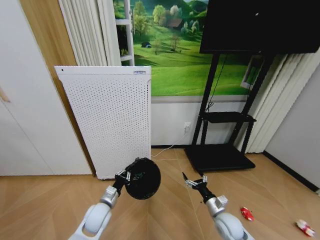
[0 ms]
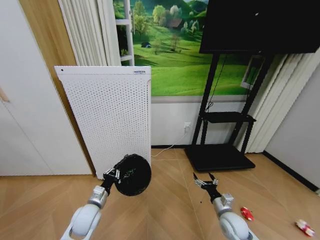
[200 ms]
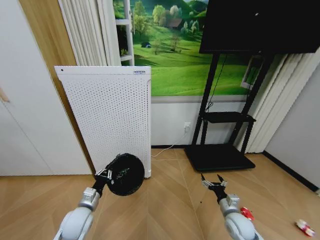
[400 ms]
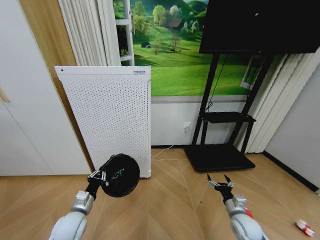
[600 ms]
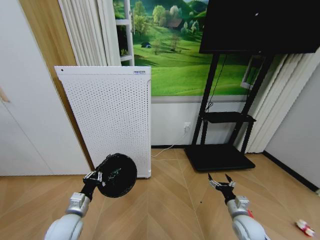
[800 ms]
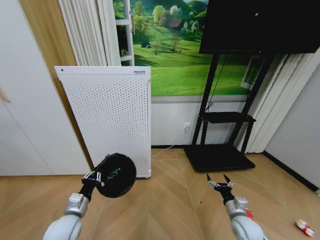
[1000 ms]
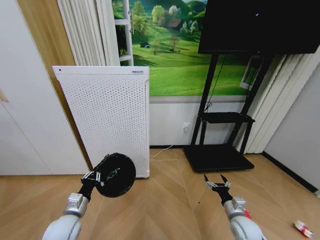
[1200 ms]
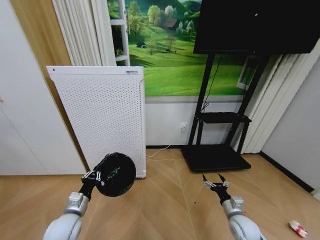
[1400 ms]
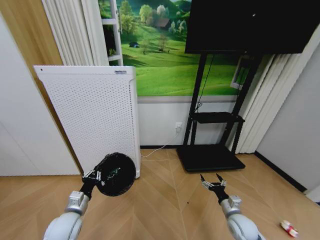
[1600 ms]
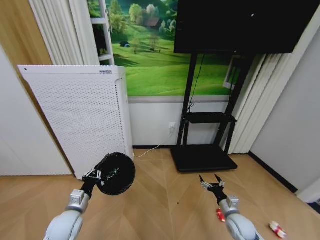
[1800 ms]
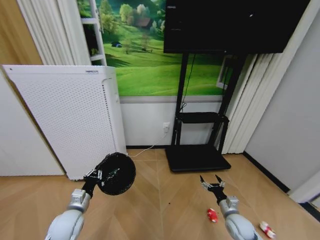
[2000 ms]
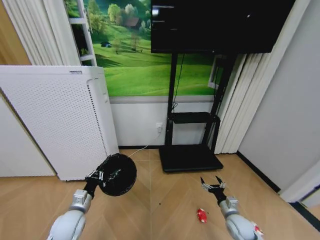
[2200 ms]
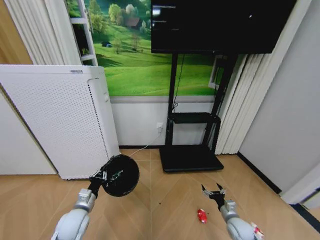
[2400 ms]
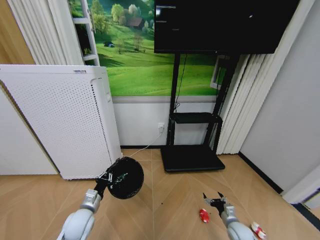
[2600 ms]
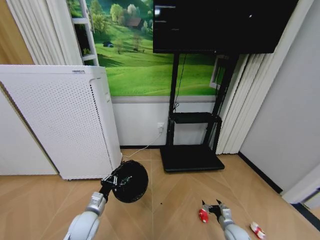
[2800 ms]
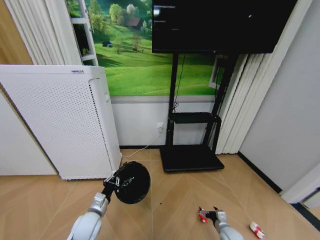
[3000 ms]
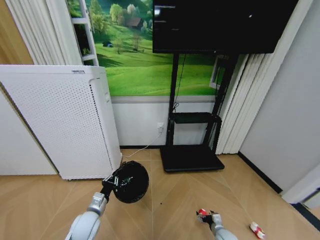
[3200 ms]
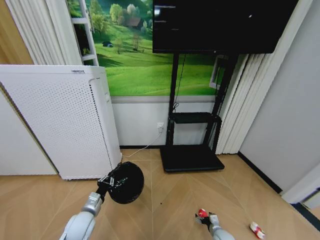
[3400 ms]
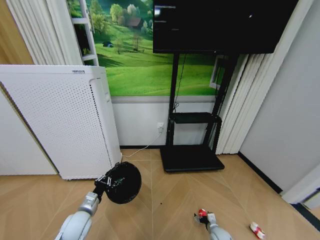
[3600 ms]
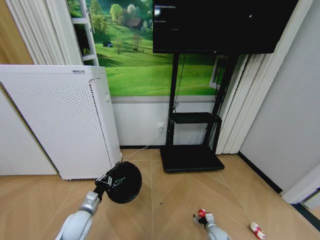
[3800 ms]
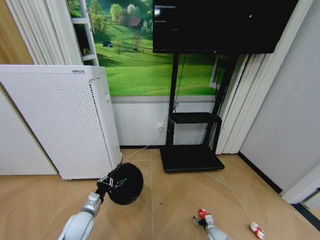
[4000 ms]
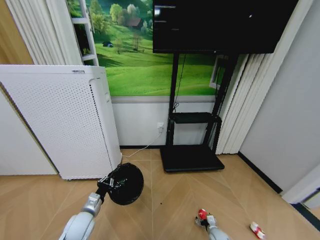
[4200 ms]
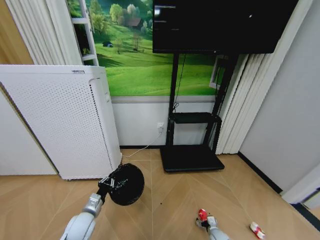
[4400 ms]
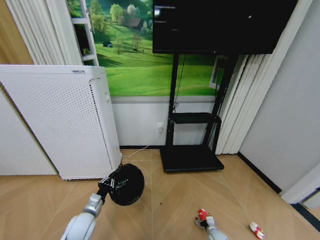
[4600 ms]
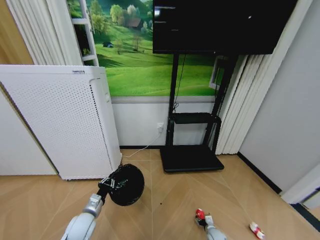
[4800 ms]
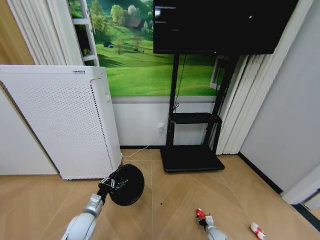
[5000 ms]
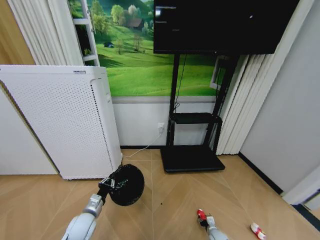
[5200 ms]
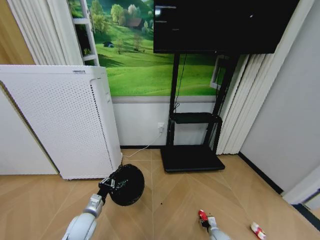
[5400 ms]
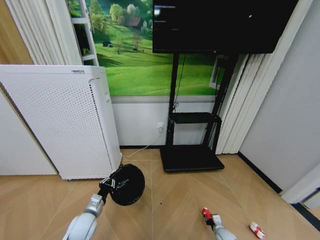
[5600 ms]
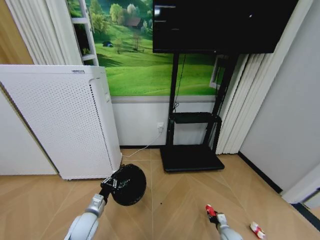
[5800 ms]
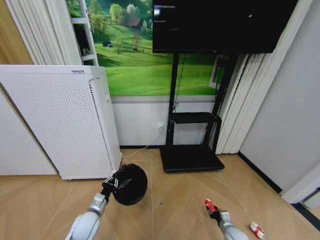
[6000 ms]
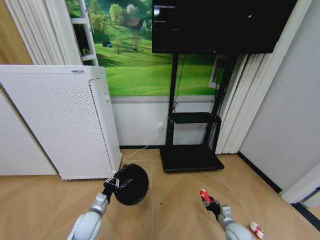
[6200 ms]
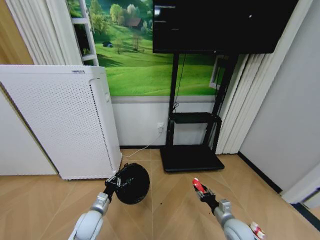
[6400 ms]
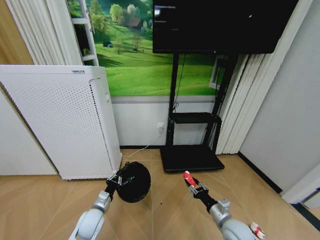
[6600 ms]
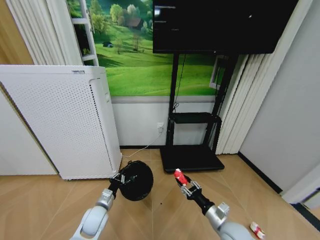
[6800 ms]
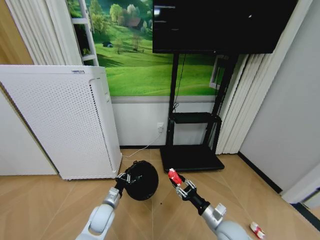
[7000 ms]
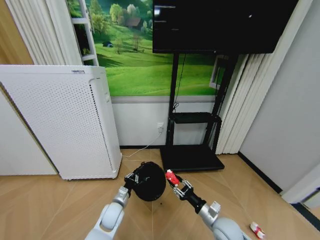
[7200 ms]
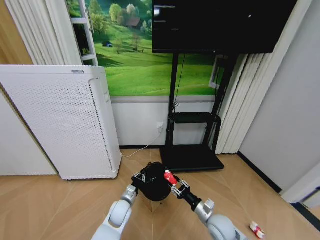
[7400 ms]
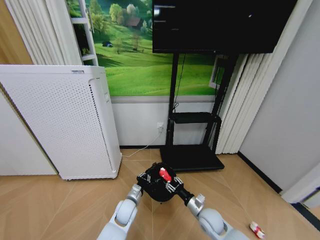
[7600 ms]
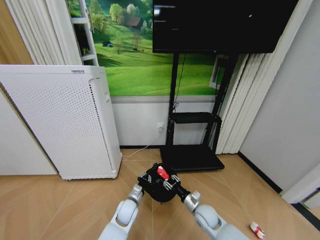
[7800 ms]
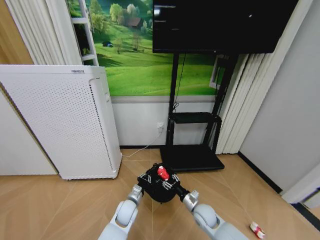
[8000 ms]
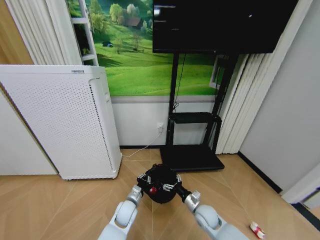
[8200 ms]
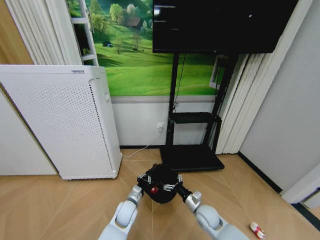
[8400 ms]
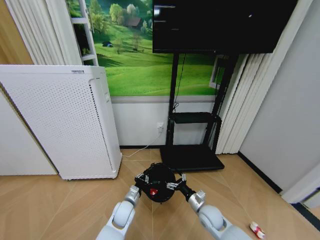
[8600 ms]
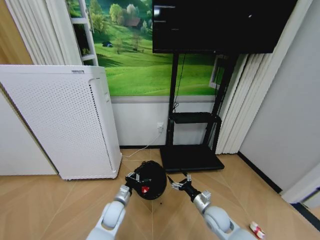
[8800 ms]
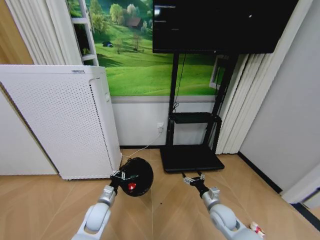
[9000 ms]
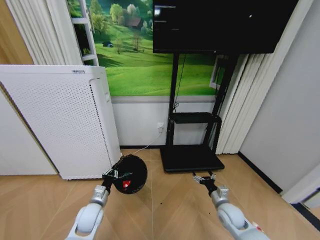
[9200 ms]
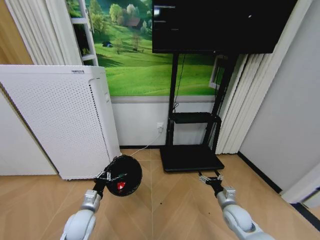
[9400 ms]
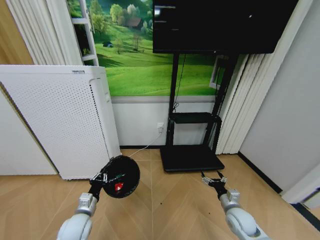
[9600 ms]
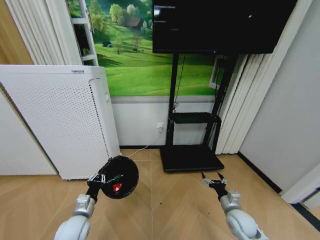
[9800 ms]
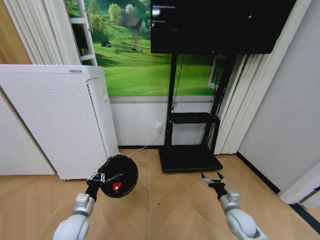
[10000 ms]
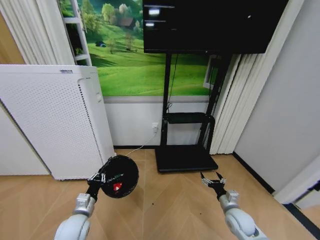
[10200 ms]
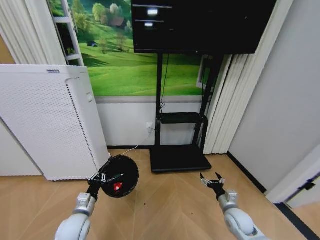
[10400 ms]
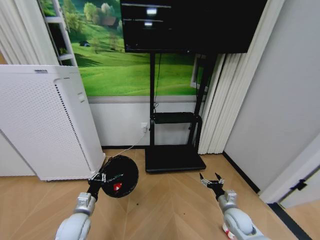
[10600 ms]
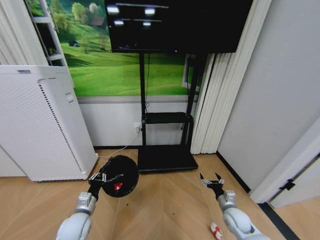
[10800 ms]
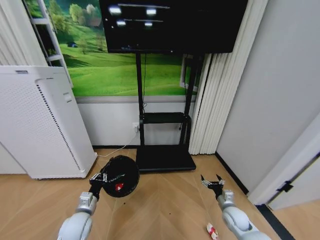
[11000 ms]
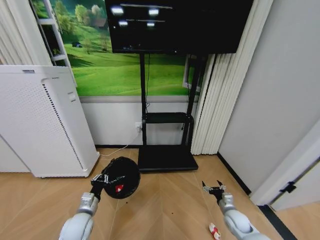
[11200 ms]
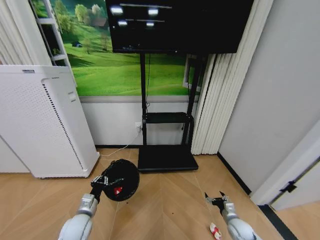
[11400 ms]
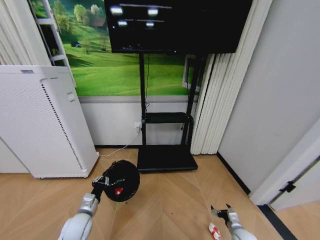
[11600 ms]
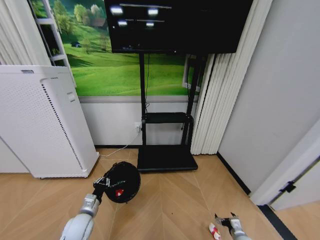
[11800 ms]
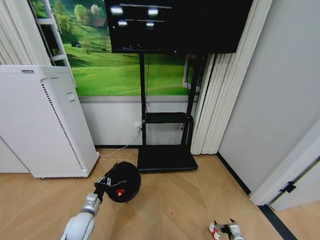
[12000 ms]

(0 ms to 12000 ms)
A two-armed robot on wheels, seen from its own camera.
Task of the whole recording: Pick up the trash bin and place the garbage on the floor into it.
0 ms - 1600 ms: The left gripper heads to the left, covering some 10 cm, while the right gripper heads to the right, covering some 5 cm.
1600 ms - 3000 ms: The left gripper moves to the right, roughly 5 cm; the right gripper is displaced downward by roughly 15 cm.
3000 ms - 4400 ms: The right gripper heads downward, covering roughly 10 cm.
4400 ms - 6000 ms: The right gripper is displaced upward by some 10 cm, and closes.
6000 ms - 7600 ms: The left gripper travels to the right and forward by some 15 cm, while the right gripper shifts some 20 cm to the left and upward.
7600 ms - 9000 ms: The right gripper opens up. Meanwhile the left gripper moves to the left, about 10 cm.
9000 ms - 10400 ms: The left gripper is displaced to the left, backward and upward by roughly 10 cm; the right gripper goes some 10 cm to the right.
10400 ms - 12000 ms: The right gripper heads downward, backward and to the right, covering roughly 20 cm.

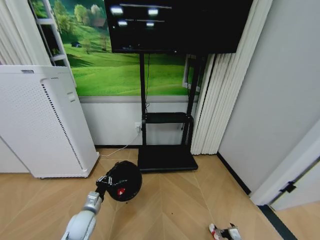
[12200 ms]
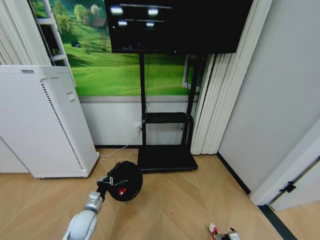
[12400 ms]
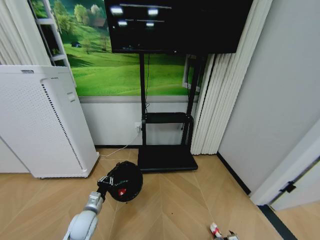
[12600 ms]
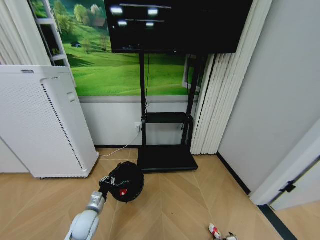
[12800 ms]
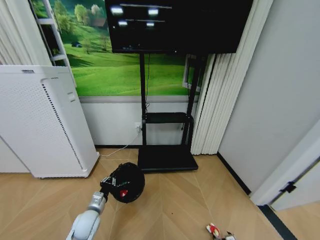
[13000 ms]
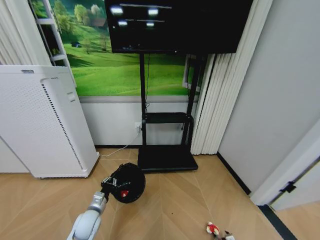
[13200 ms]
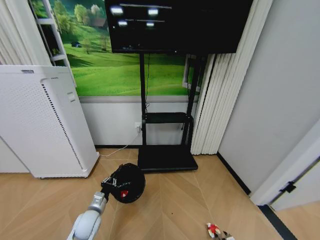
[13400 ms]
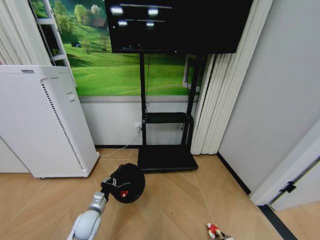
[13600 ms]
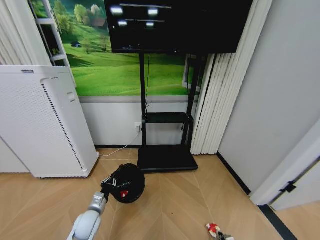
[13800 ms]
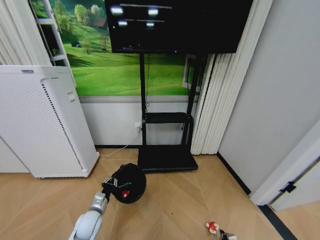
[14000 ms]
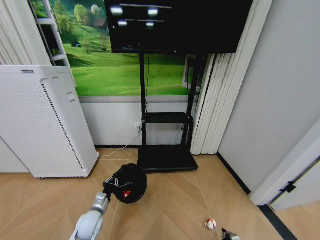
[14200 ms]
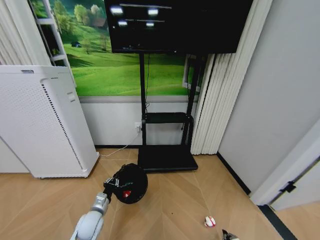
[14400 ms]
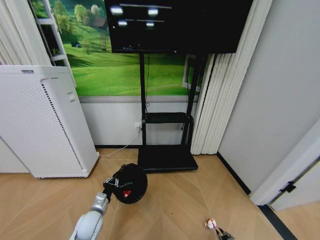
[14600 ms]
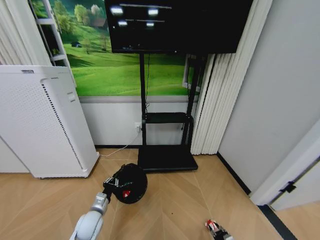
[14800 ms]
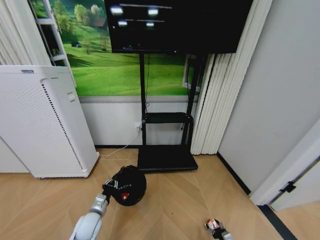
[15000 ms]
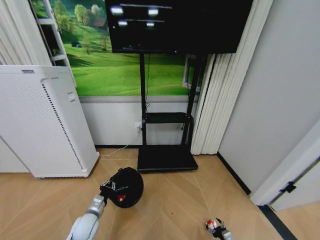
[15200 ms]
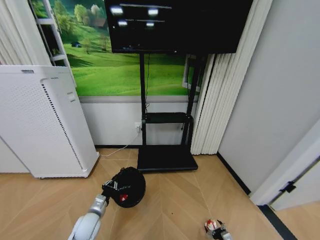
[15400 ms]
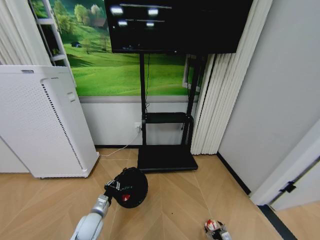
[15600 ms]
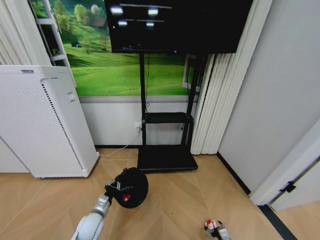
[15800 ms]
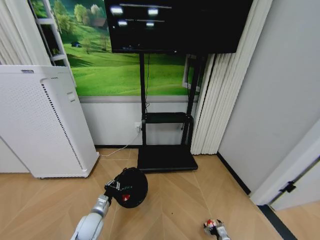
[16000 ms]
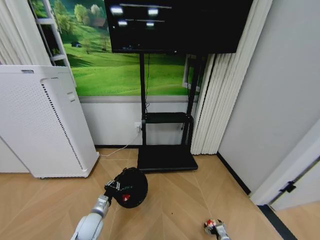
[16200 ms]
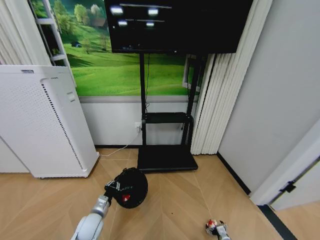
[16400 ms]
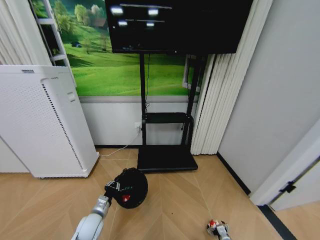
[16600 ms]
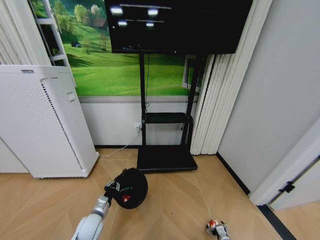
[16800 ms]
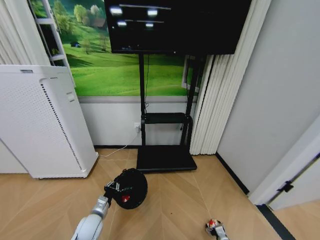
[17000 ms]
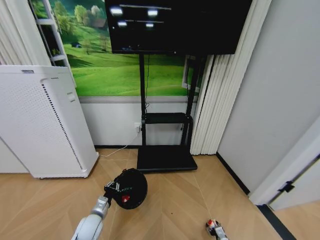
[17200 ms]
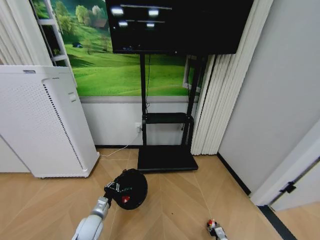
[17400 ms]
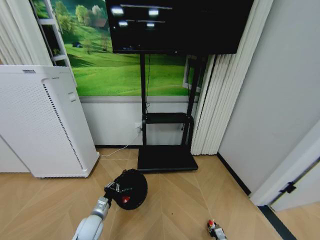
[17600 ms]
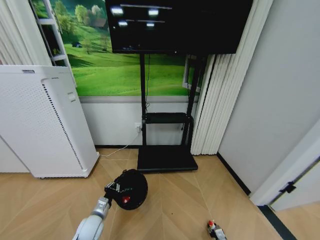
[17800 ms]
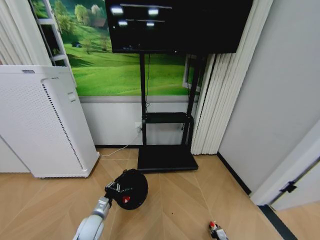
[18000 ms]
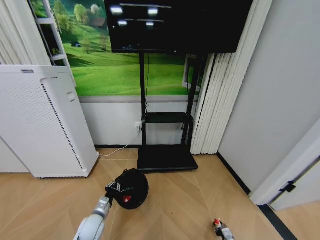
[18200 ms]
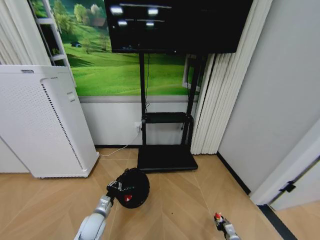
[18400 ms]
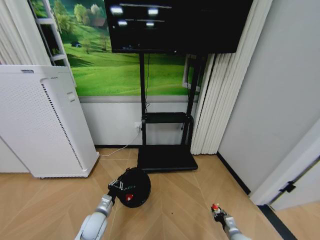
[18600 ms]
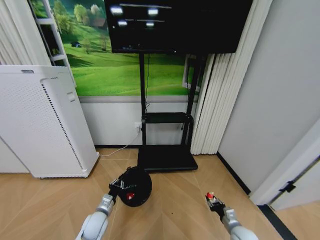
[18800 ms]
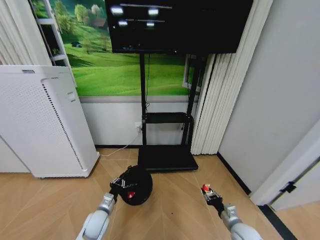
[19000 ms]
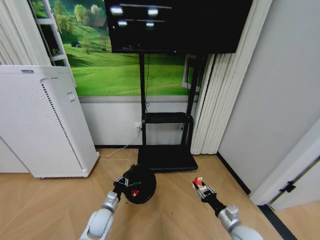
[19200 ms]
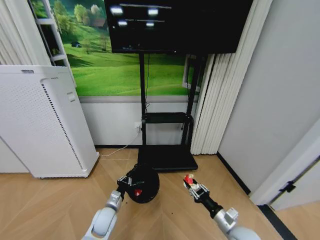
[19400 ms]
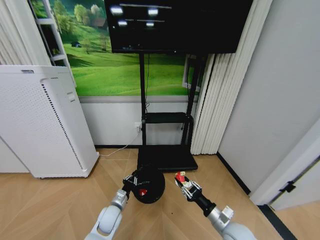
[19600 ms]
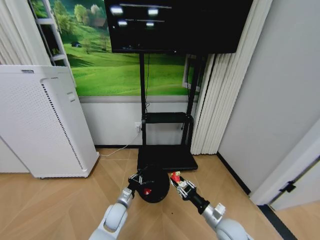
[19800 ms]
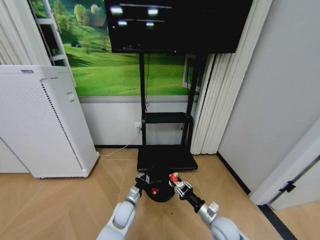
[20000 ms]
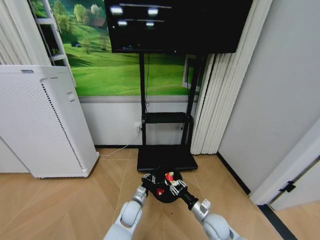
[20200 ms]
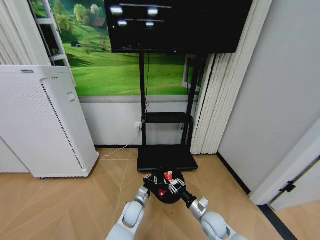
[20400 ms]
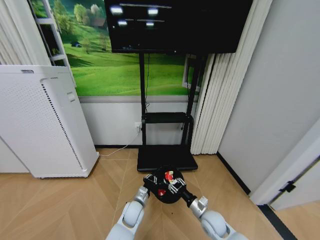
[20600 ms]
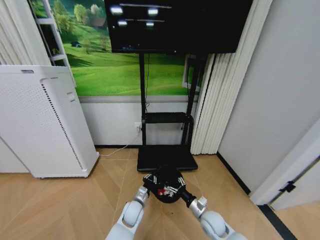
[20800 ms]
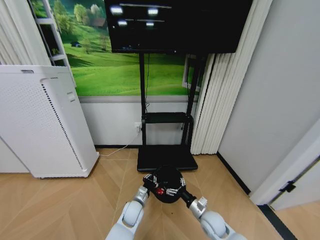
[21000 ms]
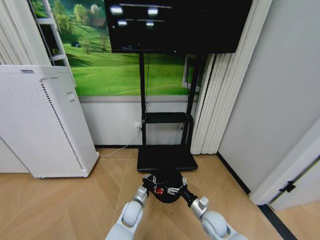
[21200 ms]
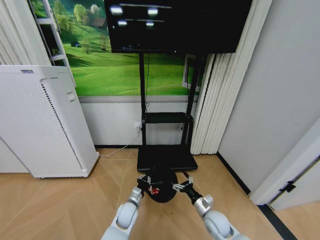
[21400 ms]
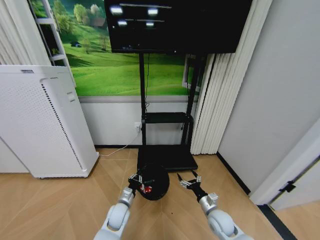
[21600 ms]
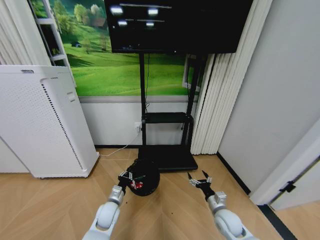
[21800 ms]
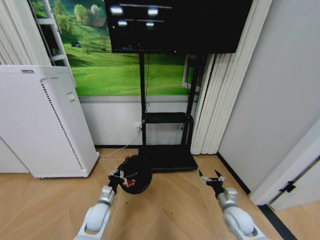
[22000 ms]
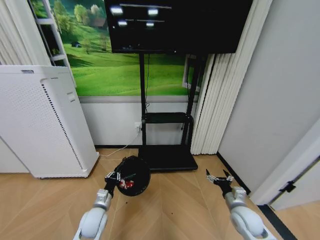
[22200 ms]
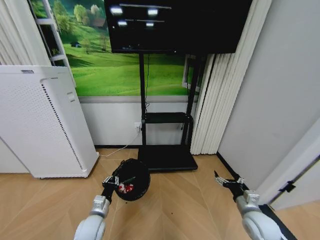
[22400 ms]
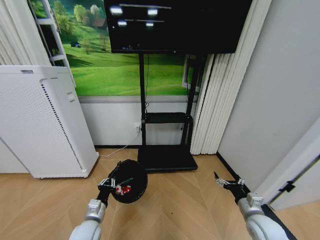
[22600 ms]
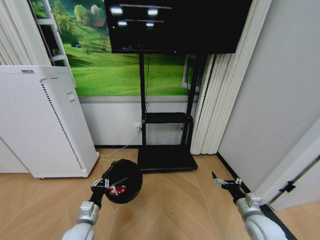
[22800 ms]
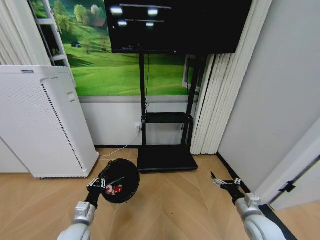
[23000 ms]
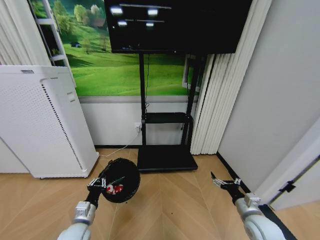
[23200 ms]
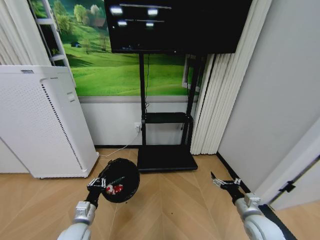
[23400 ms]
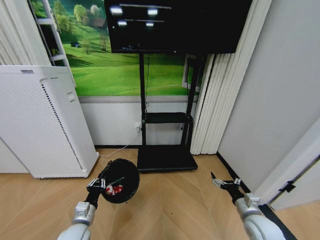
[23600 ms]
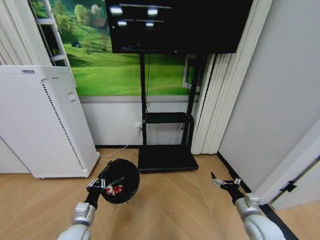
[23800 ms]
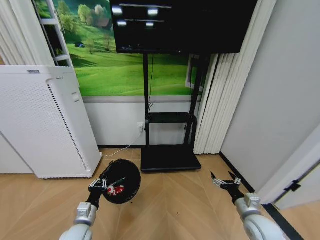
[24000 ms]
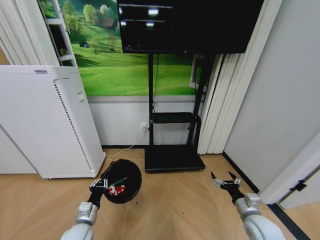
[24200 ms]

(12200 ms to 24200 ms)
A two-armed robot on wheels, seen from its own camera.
Task of the whole recording: Pick up the trash bin and place the garbage on the floor into it.
12200 ms - 13800 ms: The right gripper moves approximately 5 cm, and closes.
13800 ms - 15200 ms: The right gripper opens up.
15200 ms - 16600 ms: The right gripper ends up some 5 cm from where it was.
16600 ms - 18200 ms: The right gripper closes its fingers.
18200 ms - 19800 ms: The left gripper goes approximately 10 cm to the right. Meanwhile the right gripper travels upward and to the left by approximately 30 cm.
19800 ms - 21200 ms: The left gripper is displaced to the right by roughly 5 cm. Meanwhile the right gripper shifts roughly 5 cm downward, and opens its fingers.
21200 ms - 22600 ms: The left gripper moves to the left, backward and upward, approximately 20 cm. The right gripper shifts approximately 15 cm to the right and upward.
